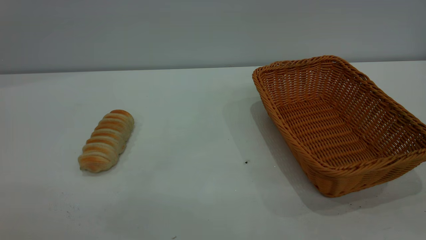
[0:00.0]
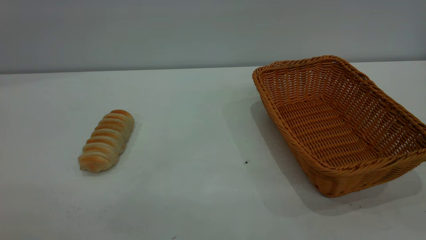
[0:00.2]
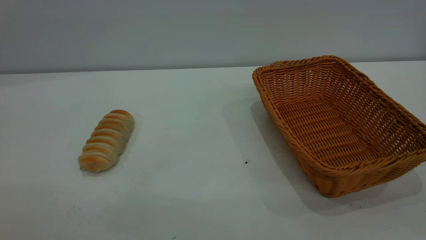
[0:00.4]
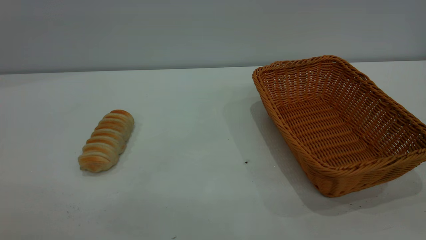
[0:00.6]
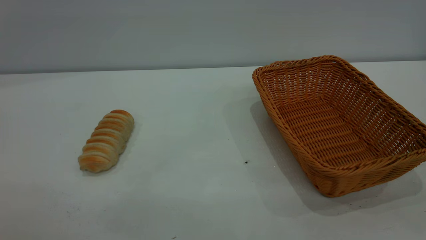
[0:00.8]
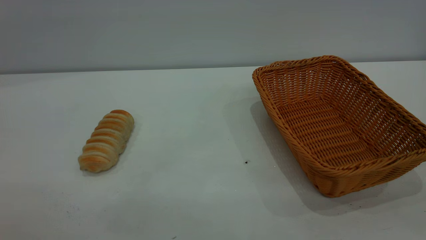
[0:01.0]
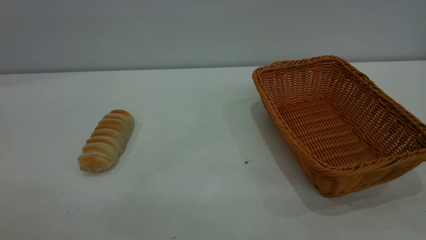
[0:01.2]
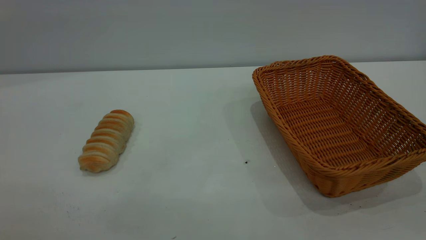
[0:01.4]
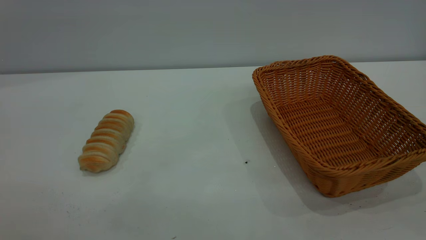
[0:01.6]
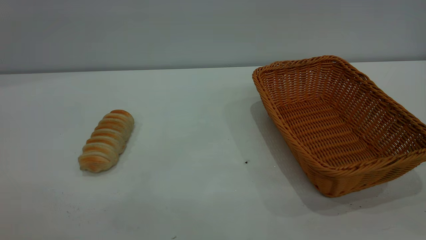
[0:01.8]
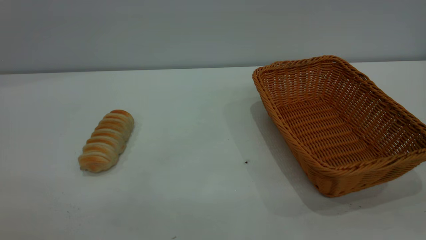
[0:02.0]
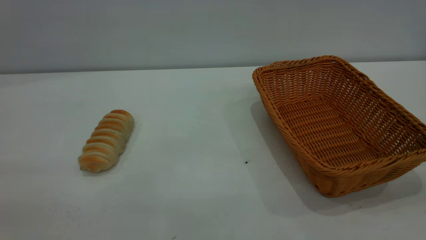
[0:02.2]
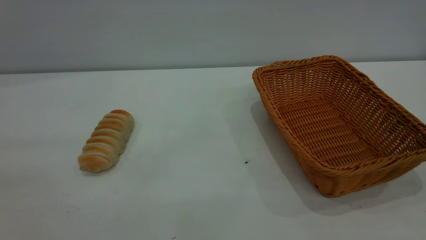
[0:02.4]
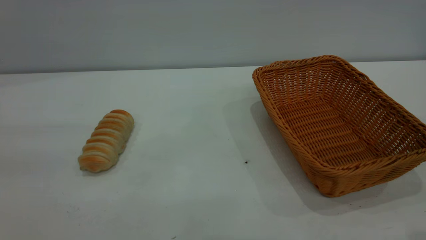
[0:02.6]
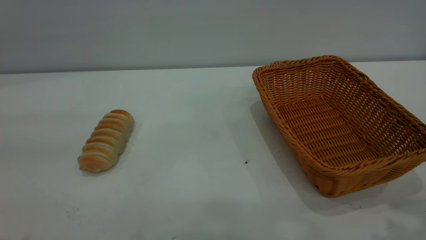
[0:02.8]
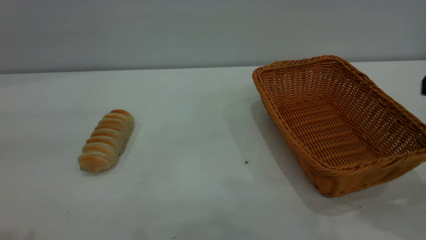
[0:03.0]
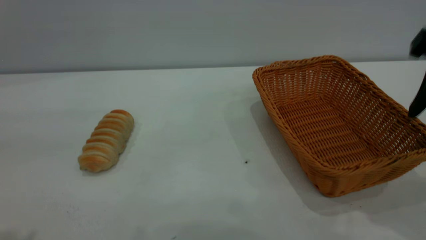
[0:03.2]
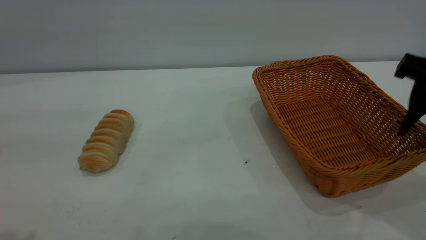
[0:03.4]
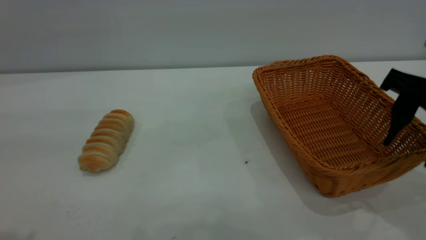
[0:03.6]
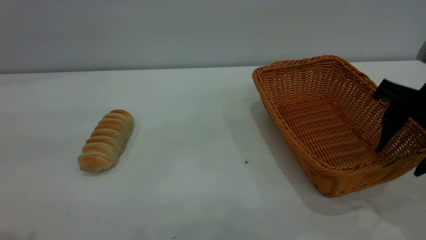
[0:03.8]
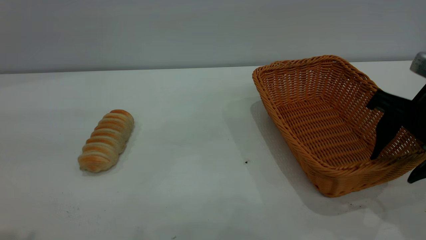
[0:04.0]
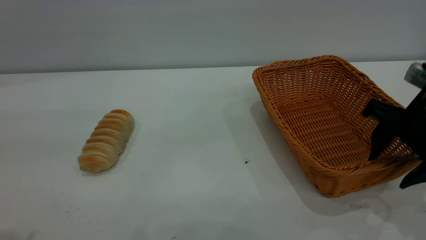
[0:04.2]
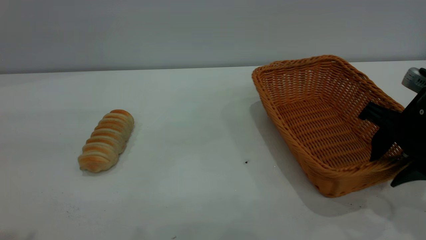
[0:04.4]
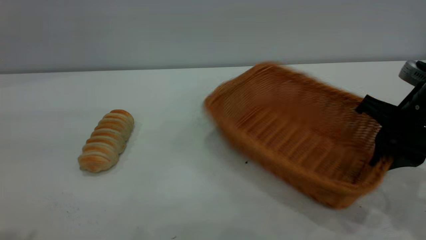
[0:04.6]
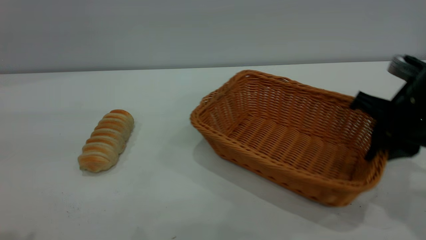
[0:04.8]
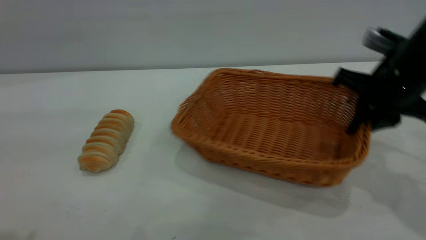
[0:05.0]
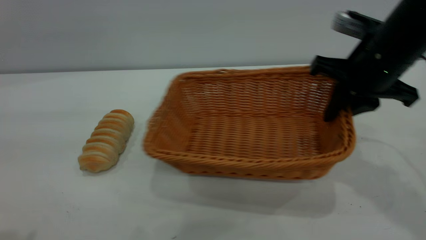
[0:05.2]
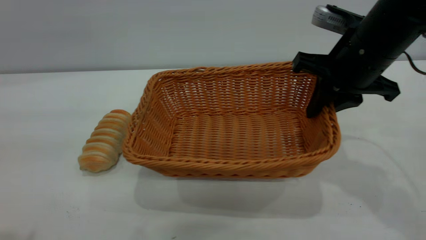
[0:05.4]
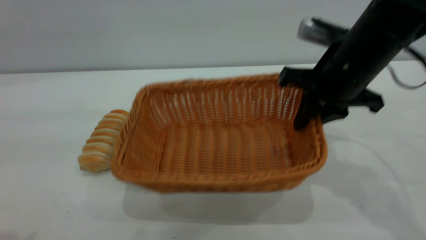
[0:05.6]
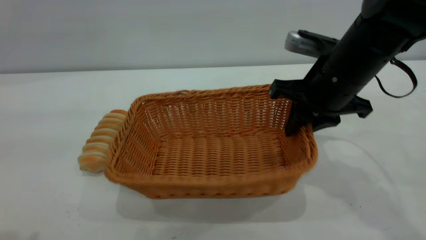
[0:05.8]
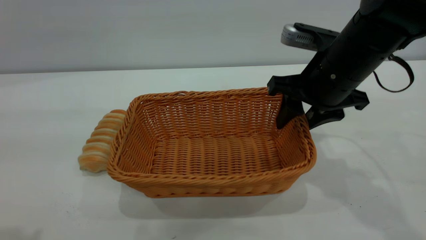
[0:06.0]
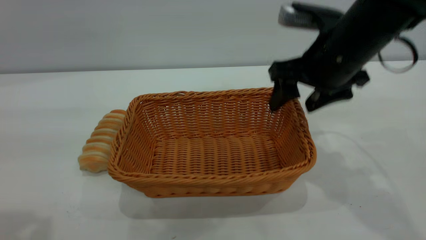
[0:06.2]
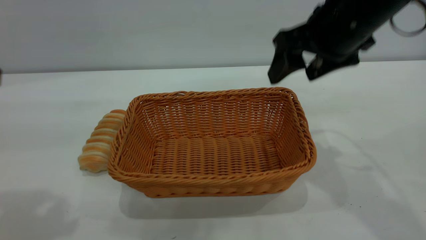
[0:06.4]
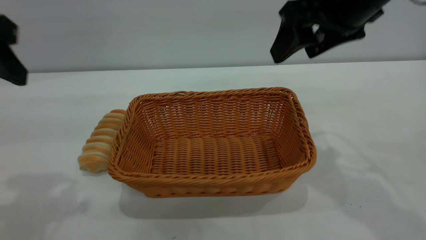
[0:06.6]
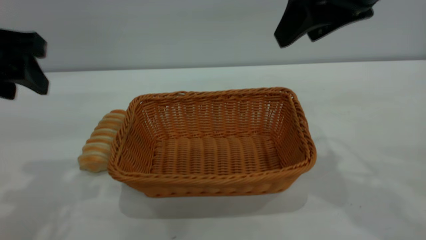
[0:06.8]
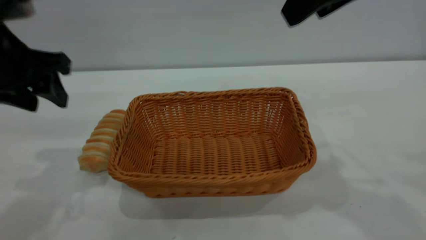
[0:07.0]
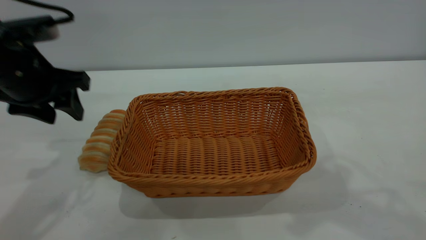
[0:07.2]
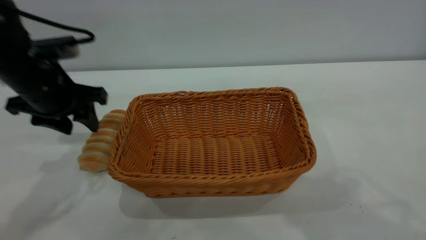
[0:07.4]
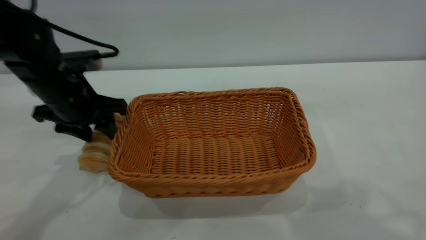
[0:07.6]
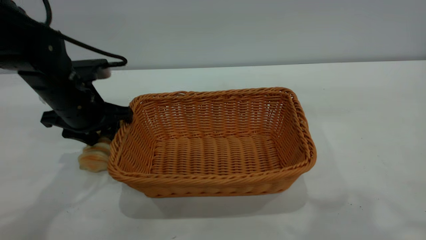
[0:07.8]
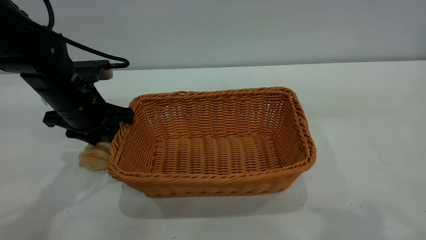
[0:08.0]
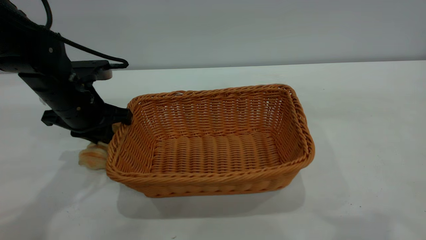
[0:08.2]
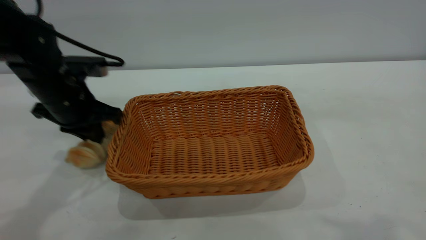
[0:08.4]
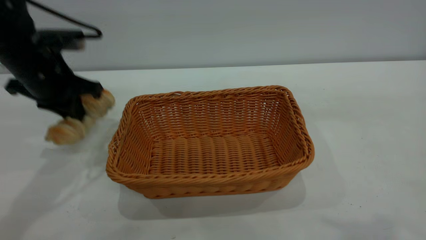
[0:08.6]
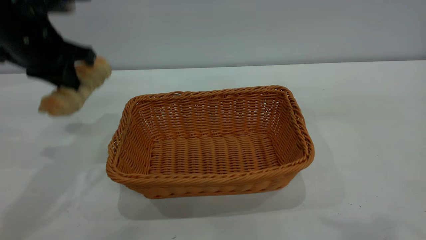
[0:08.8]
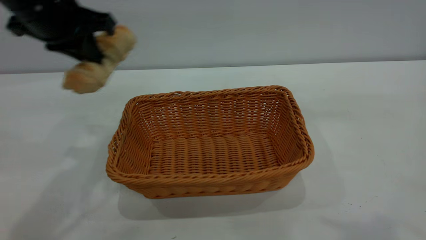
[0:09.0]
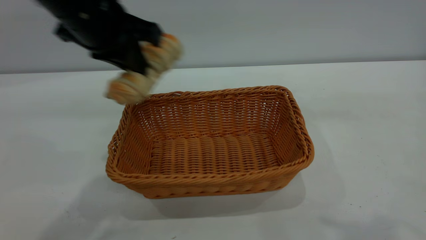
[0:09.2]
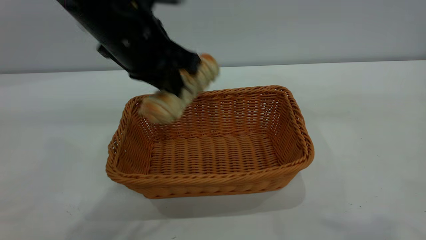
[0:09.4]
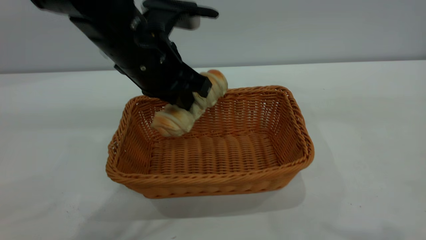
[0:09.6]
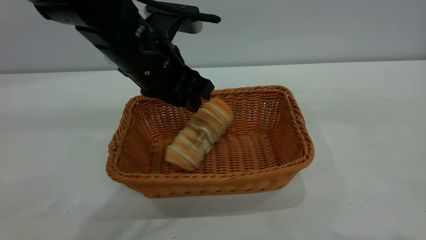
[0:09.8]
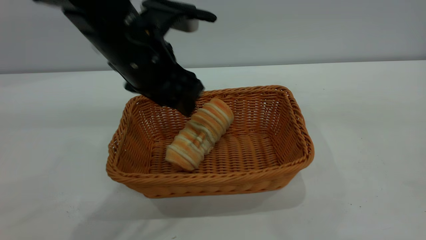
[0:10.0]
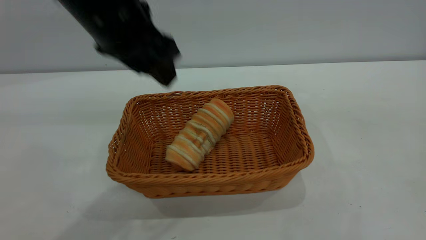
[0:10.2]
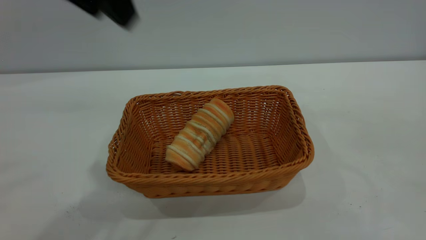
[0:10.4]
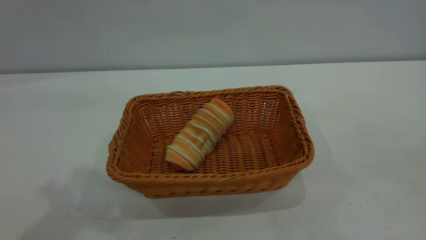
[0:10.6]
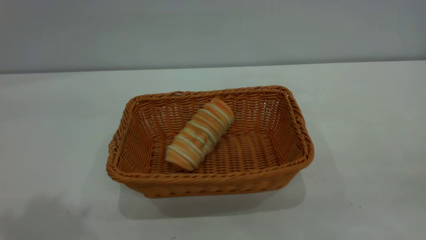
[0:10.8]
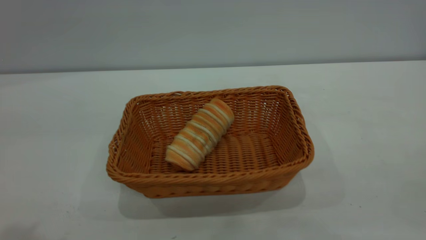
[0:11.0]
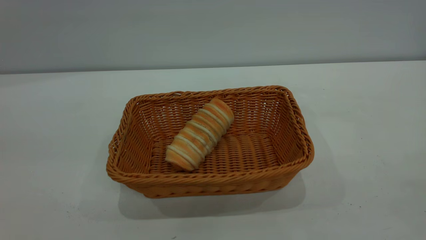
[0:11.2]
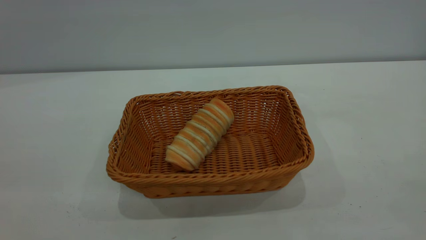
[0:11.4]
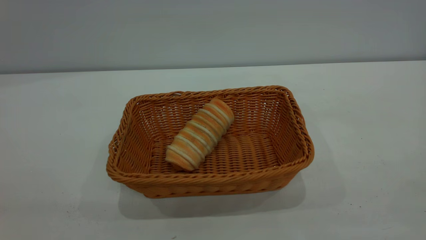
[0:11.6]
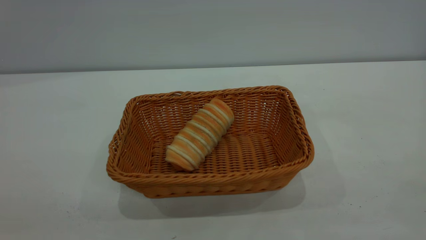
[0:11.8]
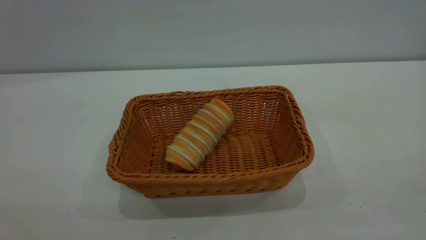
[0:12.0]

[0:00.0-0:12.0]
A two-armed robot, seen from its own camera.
Task of the whole recording: One hand grasps the yellow basket and places it in the middle of the table, while the other hand picks up the long bread and puts it into the yellow basket.
Step, 0:00.0 to 0:06.2: Move the basket to the center of view.
Step, 0:08.8 to 0:10.2: place the bread into the basket.
0:00.0 to 0:01.6: Neither gripper changes place.
0:03.0 to 0:04.4: The right gripper shifts some 15 cm downward, and closes up.
0:04.4 to 0:06.0: The right gripper is displaced to the left and forward by roughly 10 cm, and closes, then reopens.
0:06.0 to 0:07.6: The right gripper shifts some 30 cm upward and backward. The left gripper travels forward and downward by approximately 30 cm.
0:07.6 to 0:09.0: The left gripper shifts roughly 15 cm upward, and closes its fingers, while the right gripper is displaced backward by some 5 cm.
0:09.0 to 0:10.4: The left gripper heads upward and backward, covering approximately 10 cm, and opens its fingers, while the right gripper is displaced backward and to the right by about 10 cm.
0:10.4 to 0:12.0: The left gripper travels backward and to the left by some 30 cm.

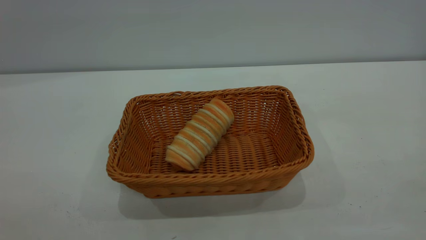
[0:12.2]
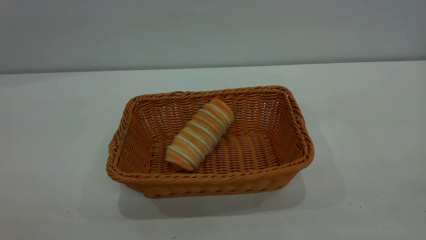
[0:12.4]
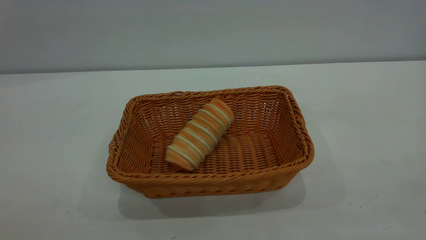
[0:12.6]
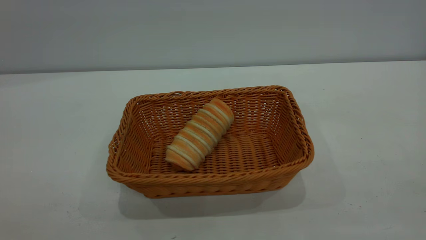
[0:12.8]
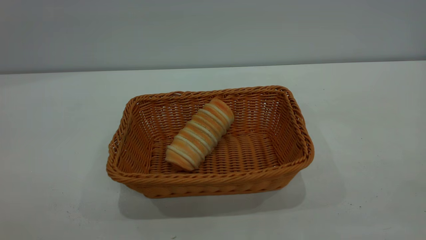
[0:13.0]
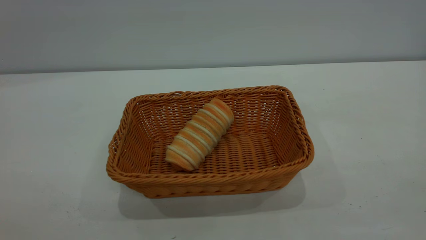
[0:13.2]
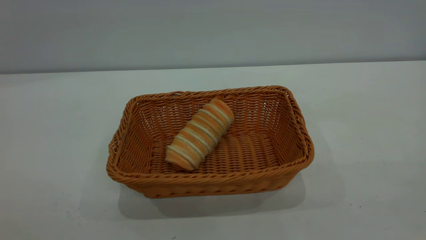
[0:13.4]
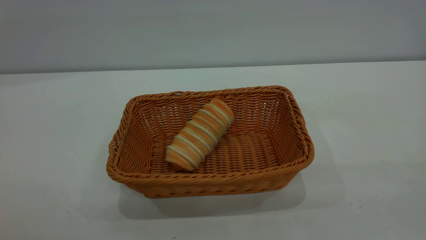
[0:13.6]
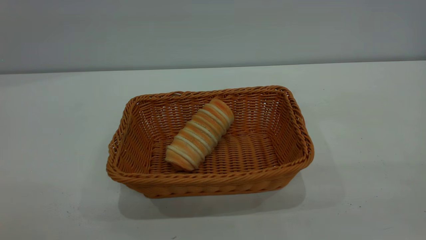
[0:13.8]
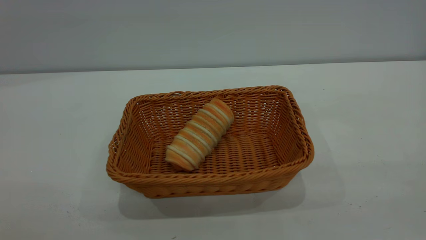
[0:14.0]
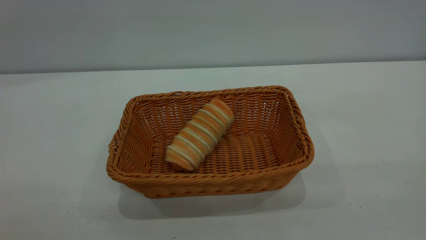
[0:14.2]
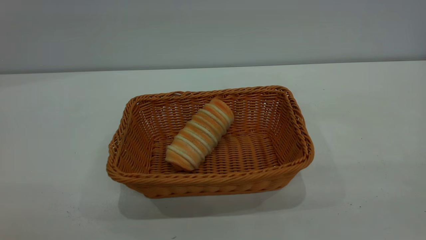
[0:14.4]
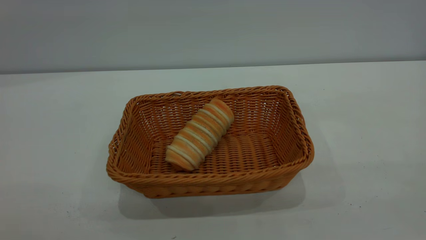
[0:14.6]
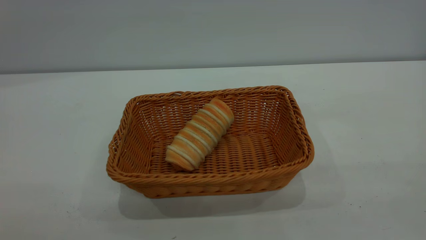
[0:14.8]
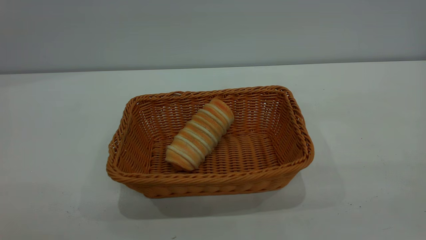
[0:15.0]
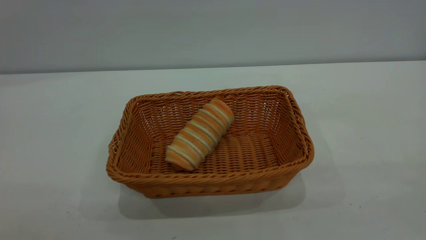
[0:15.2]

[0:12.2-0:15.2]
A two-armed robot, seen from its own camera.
Task of the whole recording: One hand grasps the yellow basket and places it in the middle of the table, while the other hand picks up the long bread and puts it into the yellow basket.
0:13.8 to 0:15.2: The two grippers keep their place.
